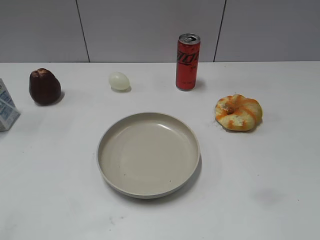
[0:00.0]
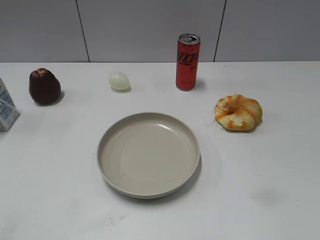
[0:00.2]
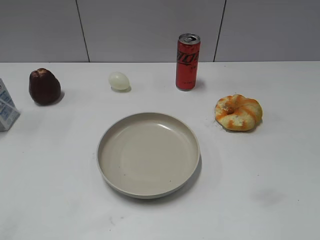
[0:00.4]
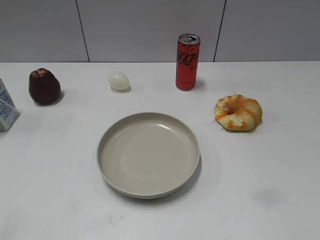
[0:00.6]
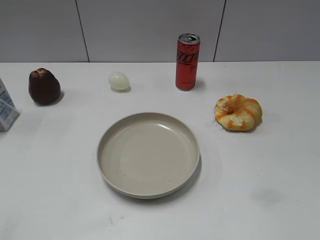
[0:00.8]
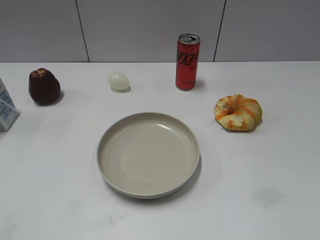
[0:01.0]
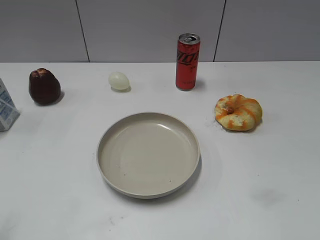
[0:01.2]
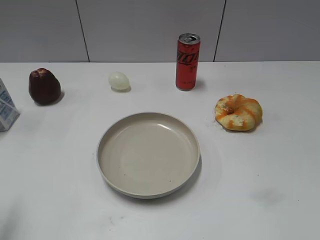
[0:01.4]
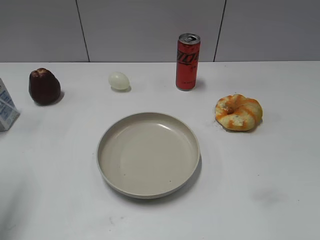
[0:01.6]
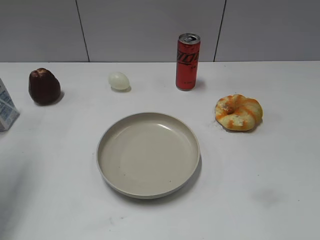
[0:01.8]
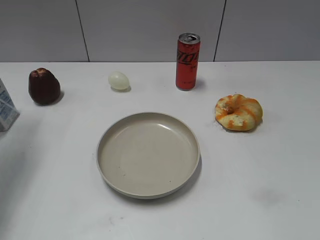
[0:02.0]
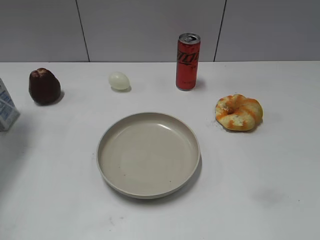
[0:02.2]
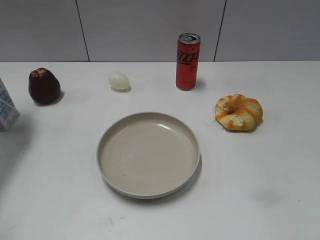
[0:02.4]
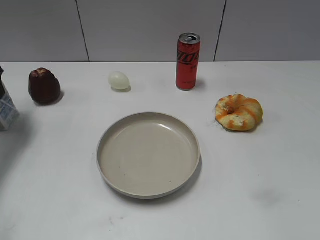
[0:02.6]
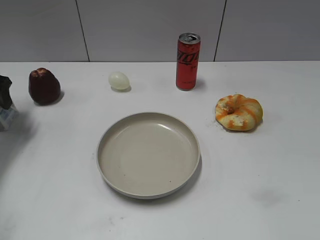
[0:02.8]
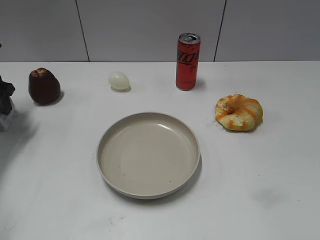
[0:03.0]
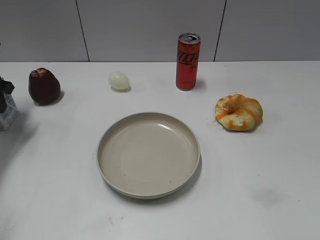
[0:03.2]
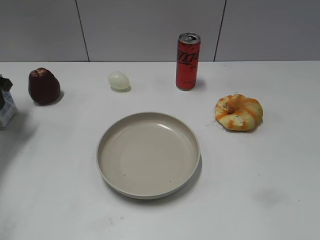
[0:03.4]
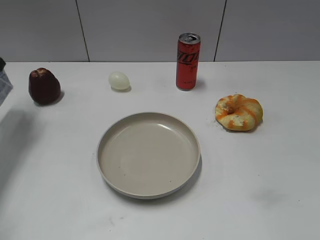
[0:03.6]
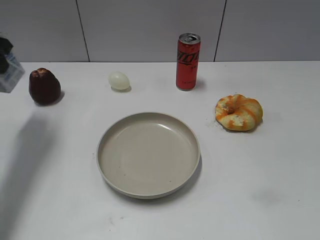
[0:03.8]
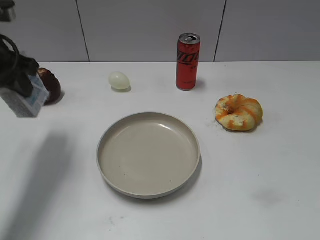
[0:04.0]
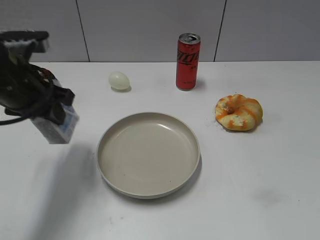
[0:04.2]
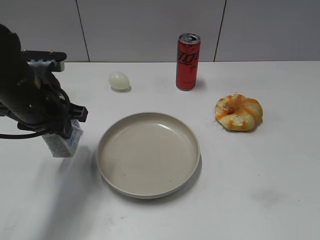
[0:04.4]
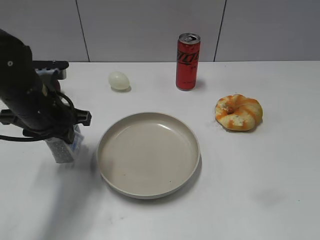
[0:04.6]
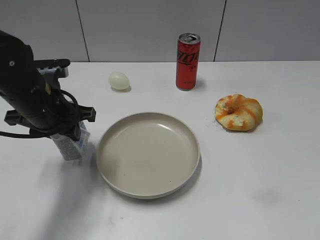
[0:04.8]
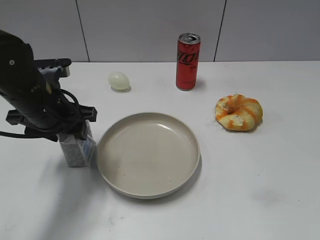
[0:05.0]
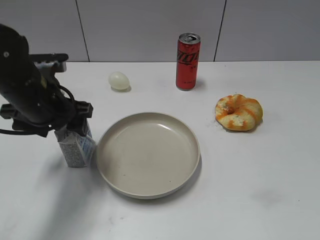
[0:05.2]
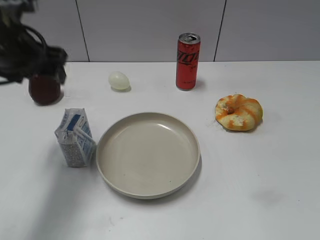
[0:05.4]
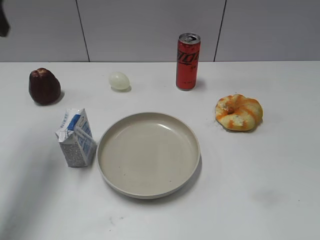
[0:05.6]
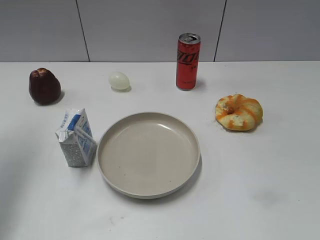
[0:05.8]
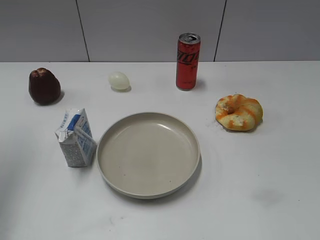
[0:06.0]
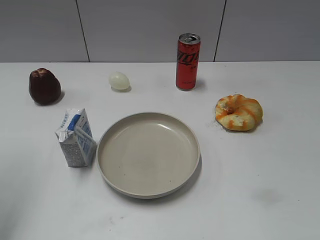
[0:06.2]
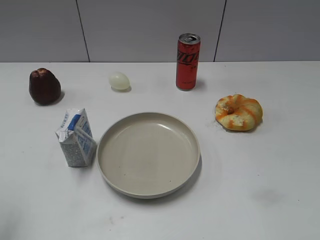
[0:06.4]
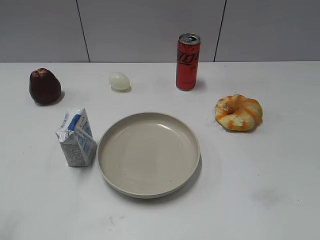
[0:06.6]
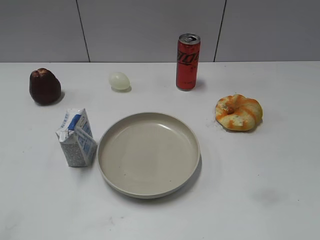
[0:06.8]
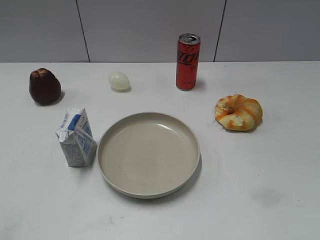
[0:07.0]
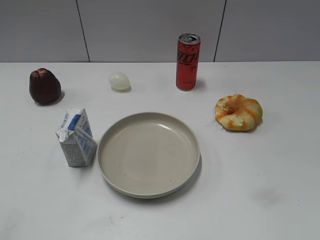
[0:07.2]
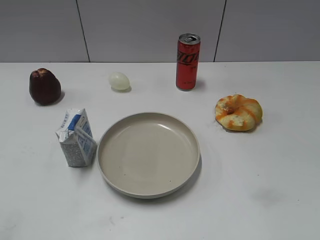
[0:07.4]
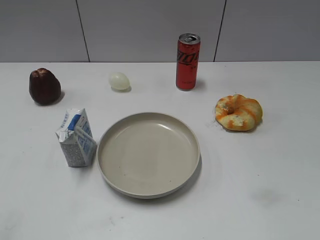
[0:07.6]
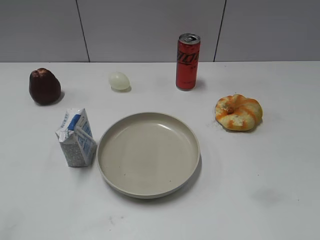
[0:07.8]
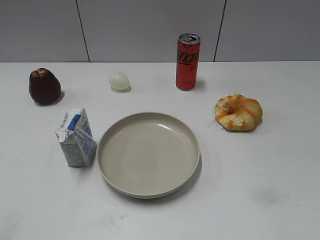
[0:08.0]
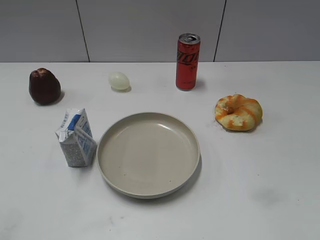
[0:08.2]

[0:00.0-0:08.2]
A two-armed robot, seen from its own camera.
Step, 0:00.8 to 0:03.4: Grasp the milk with left gripper.
Step, 0:03.6 to 0:05.2: Place the milk on the table with left gripper.
0:01.6 to 0:03.2: The left gripper travels forward and downward by roughly 25 cm, and closes.
0:03.2 to 0:05.0: The left gripper heads to the right and backward, covering roughly 20 cm, and opens.
0:05.0 to 0:06.6: The left gripper travels backward, to the left and upward by some 30 cm.

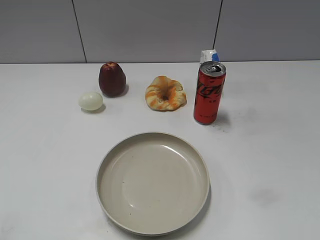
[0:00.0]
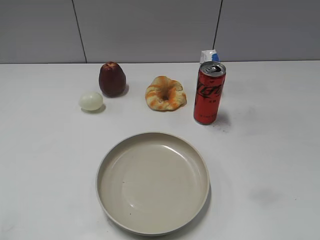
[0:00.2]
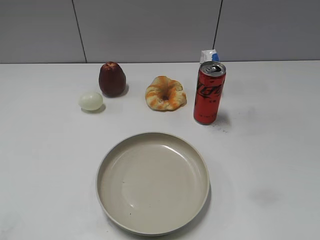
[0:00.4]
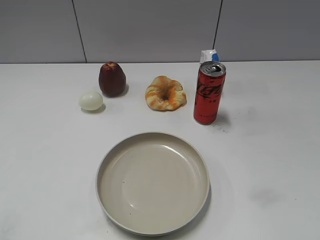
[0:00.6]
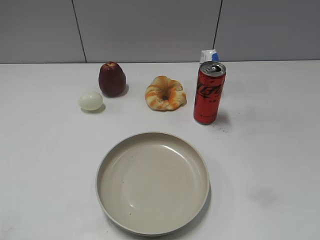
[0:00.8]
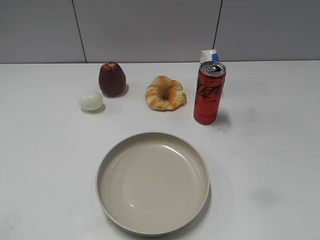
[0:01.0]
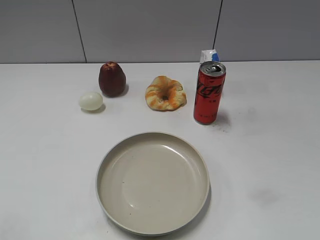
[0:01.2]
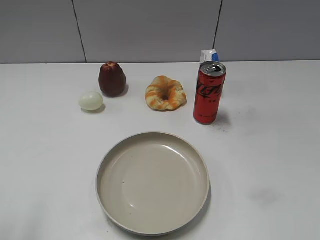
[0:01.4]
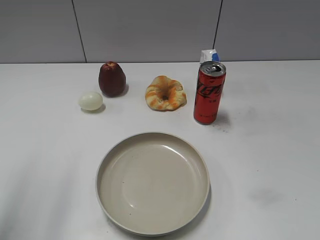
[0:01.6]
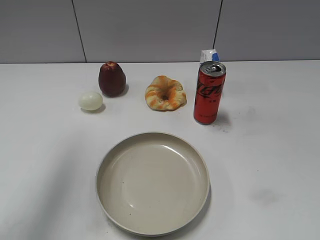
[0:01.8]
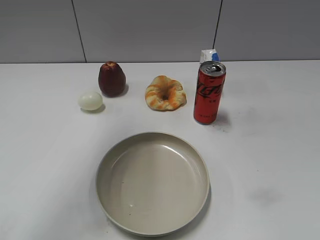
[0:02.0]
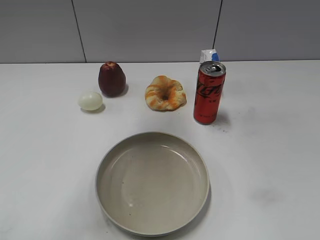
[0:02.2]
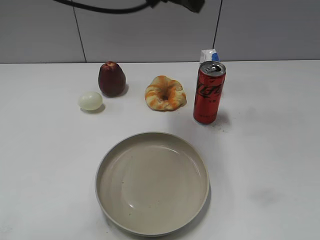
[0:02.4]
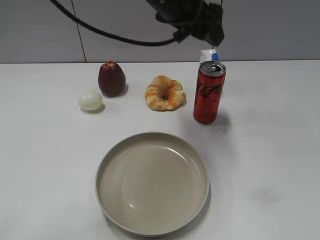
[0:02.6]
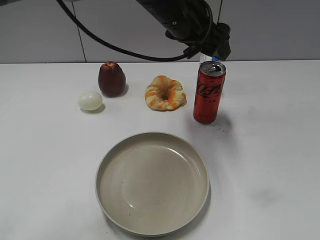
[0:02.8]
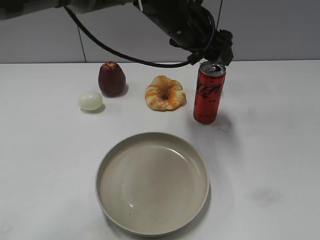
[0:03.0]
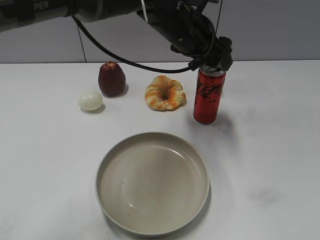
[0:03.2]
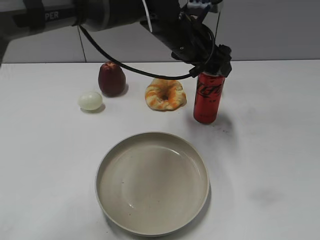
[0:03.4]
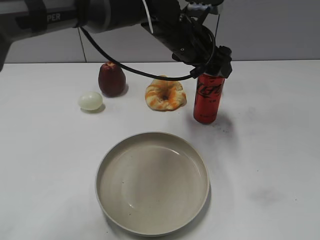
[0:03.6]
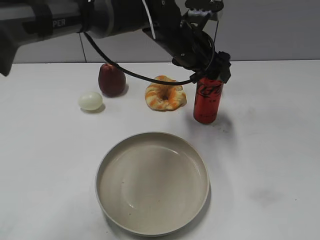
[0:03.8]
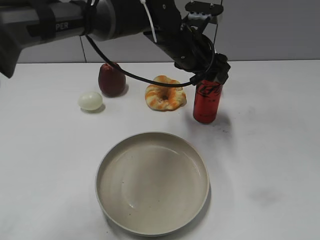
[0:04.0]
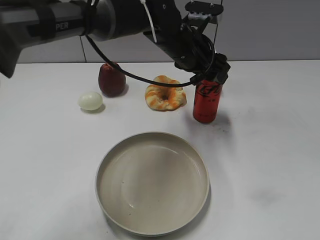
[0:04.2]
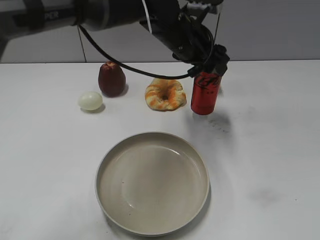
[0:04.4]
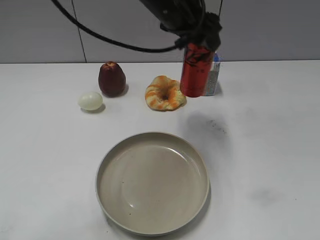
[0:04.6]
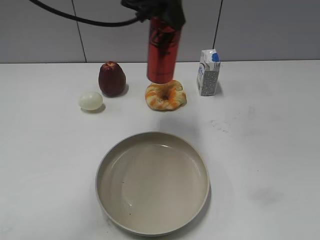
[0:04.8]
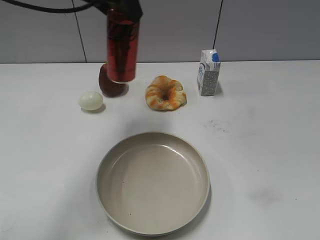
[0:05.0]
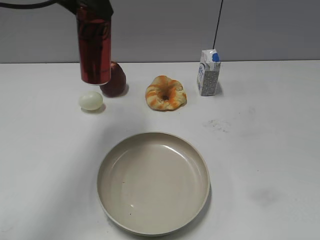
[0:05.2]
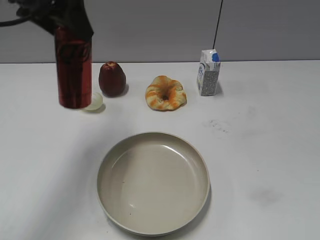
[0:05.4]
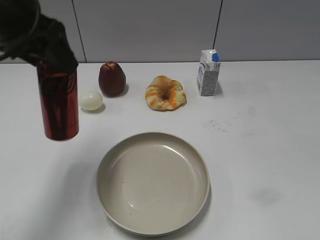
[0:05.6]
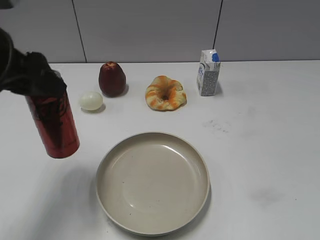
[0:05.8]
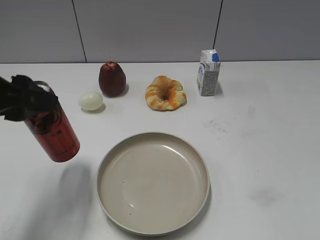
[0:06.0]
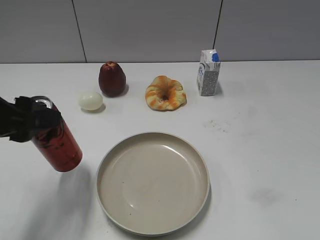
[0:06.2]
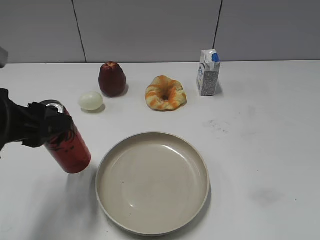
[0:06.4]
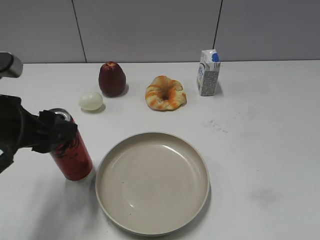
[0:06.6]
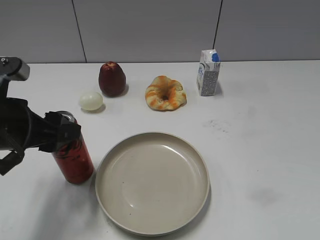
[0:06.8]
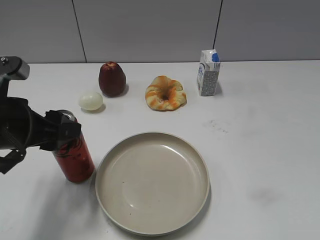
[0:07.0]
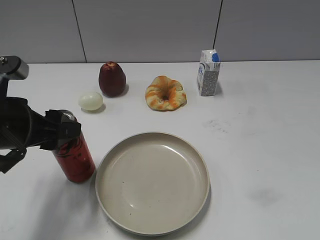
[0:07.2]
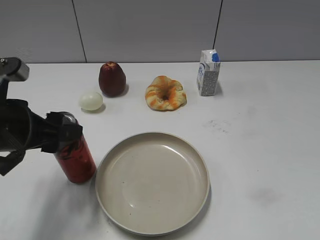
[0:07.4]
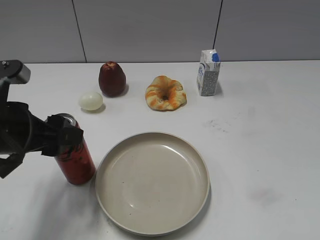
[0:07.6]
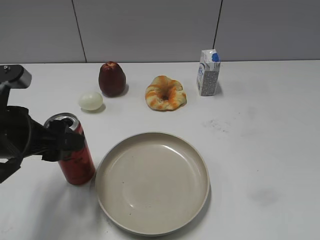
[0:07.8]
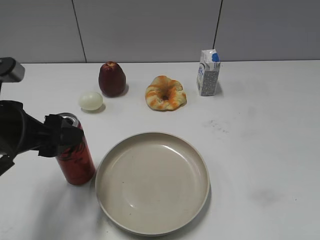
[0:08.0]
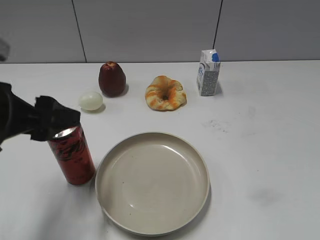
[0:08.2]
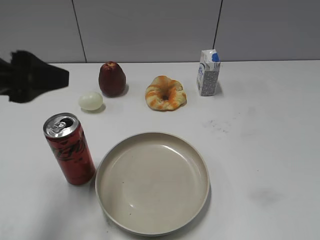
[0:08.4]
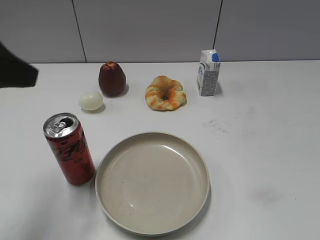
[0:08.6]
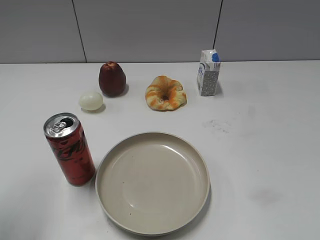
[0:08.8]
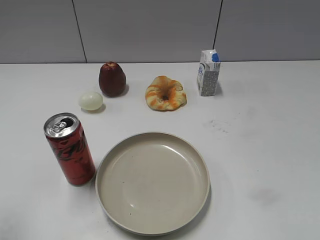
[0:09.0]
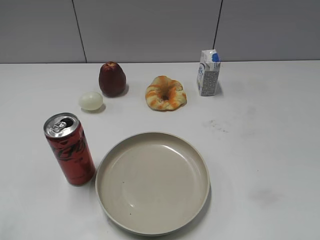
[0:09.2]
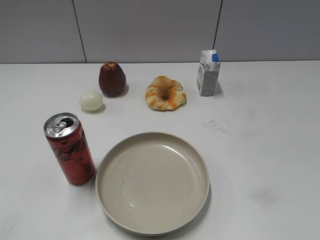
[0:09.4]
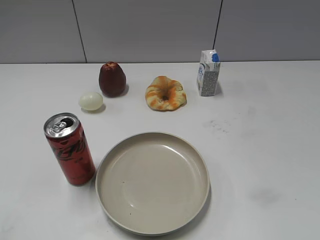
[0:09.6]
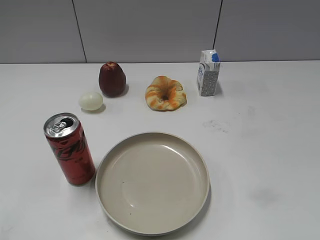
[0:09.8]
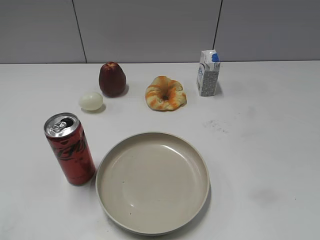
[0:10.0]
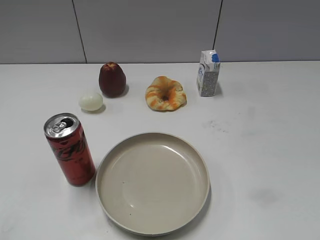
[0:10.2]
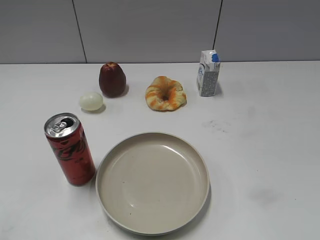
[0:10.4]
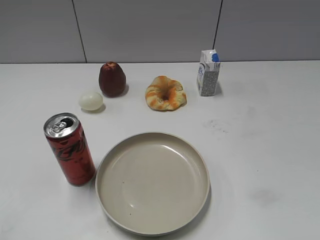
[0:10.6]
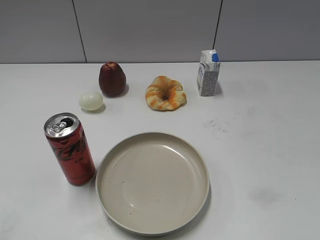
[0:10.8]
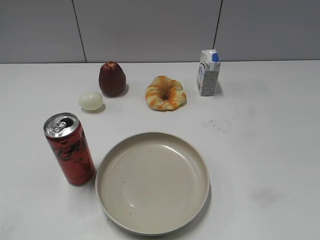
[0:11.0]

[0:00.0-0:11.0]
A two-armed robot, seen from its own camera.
Step, 0:01.0 to 0:04.2: Grasp the cola with left gripper.
Step, 0:04.4 to 0:08.2: Place the cola on the table with left gripper.
0:01.6 to 0:03.2: The left gripper moves to the right, forward and downward, approximately 40 cm, and opens.
0:03.2 to 0:04.8: The left gripper is displaced upward and to the left by approximately 10 cm, and closes.
0:04.8 to 0:06.2: The left gripper is displaced to the left, backward and downward by some 30 cm.
0:06.2 to 0:07.8: The left gripper opens up.
0:07.8 to 0:09.4: The left gripper travels backward, to the left and upward by roughly 20 cm, and closes.

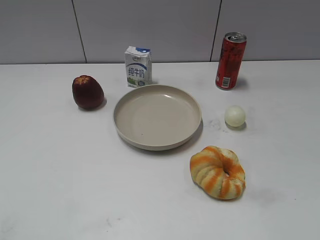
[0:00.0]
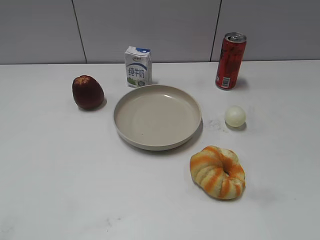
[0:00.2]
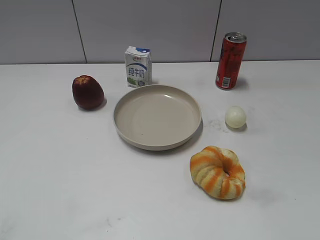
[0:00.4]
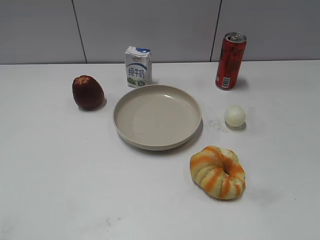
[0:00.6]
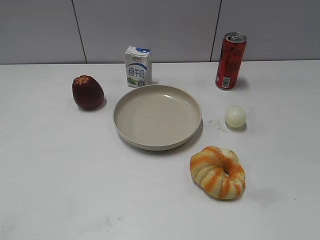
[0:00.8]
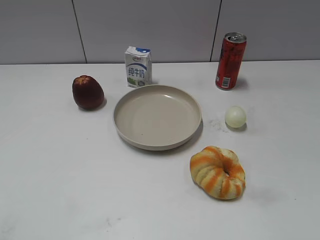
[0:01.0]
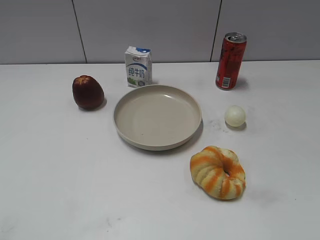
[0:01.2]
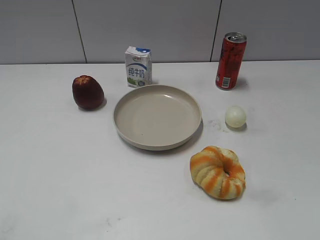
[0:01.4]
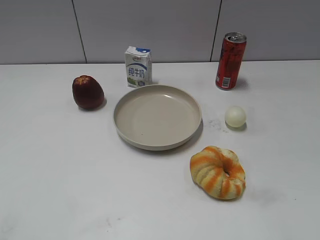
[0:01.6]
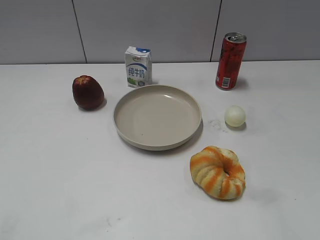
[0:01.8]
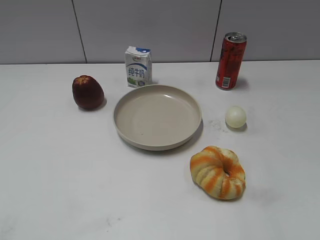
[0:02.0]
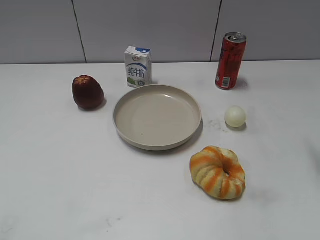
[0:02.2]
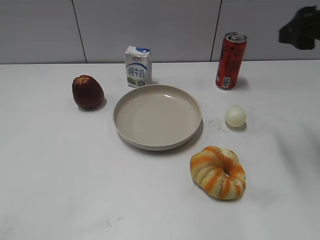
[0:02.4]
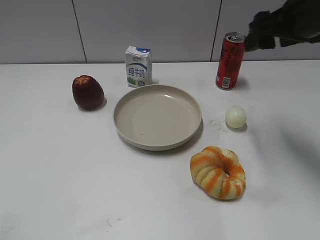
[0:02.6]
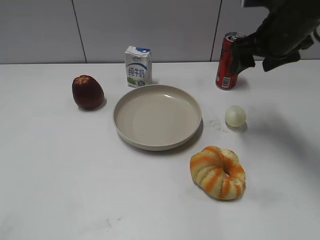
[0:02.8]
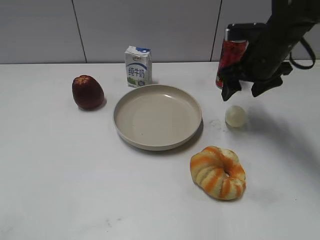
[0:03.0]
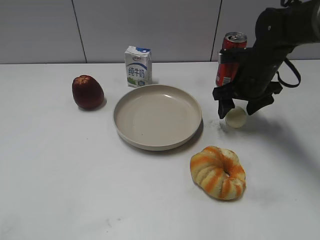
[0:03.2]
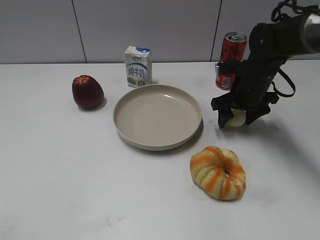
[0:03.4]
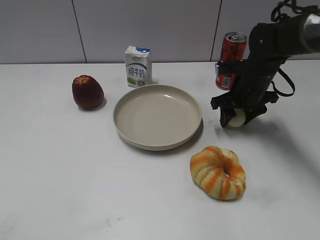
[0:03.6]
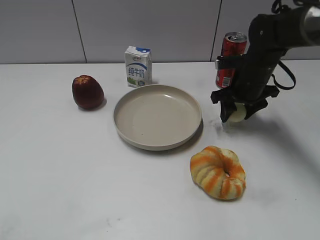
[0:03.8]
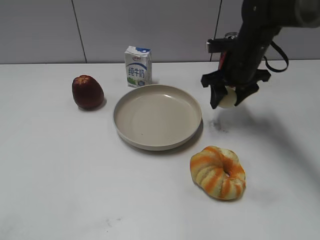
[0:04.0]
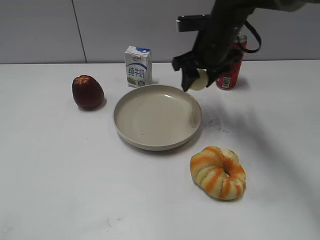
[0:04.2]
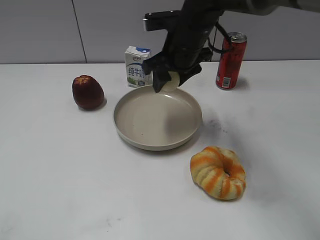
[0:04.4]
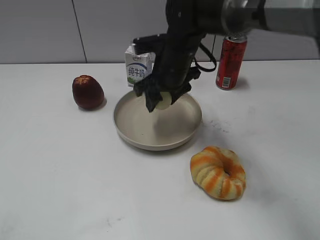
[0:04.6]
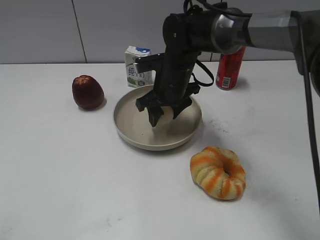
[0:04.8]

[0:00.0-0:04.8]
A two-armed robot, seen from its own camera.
Step, 0:01.2 to 0:03.4: Grasp the egg with right gripper.
0:01.6 to 0:03.2: The right gripper goes about 40 cm forward.
0:03.2 to 0:04.8: The right gripper shifts about 15 cm to the left, and closes its fingers.
